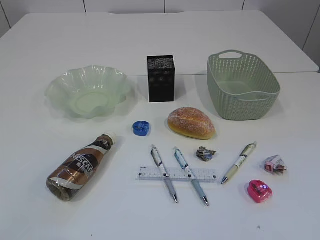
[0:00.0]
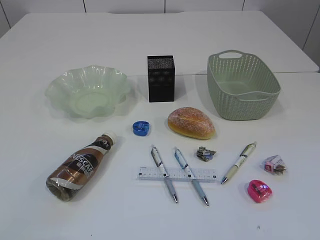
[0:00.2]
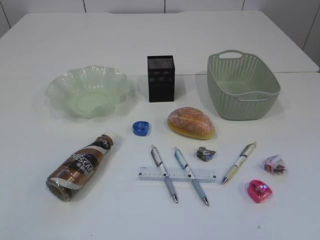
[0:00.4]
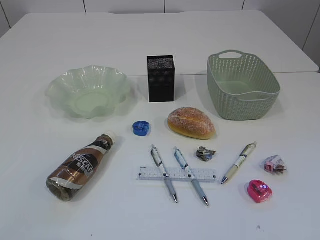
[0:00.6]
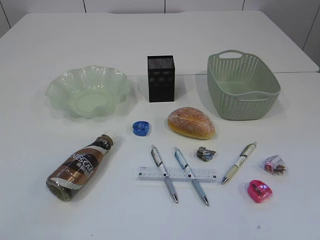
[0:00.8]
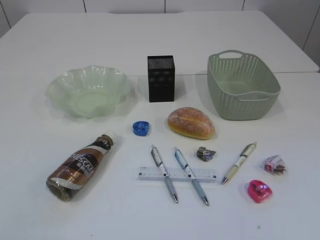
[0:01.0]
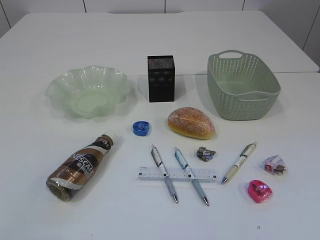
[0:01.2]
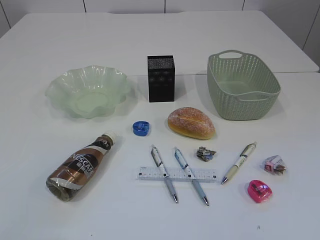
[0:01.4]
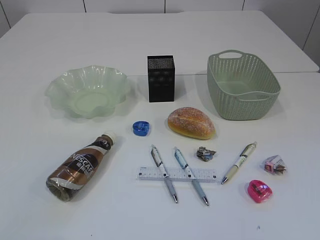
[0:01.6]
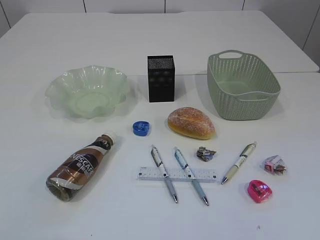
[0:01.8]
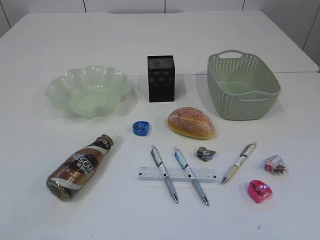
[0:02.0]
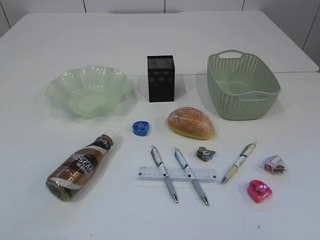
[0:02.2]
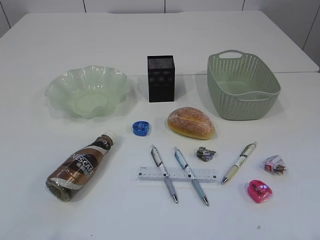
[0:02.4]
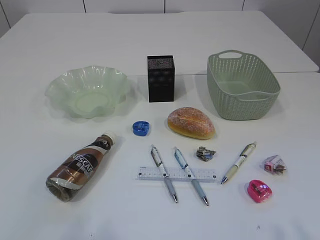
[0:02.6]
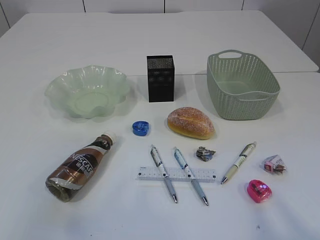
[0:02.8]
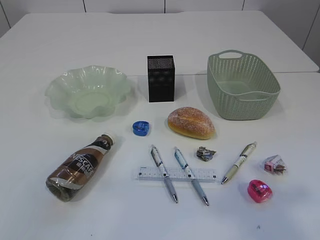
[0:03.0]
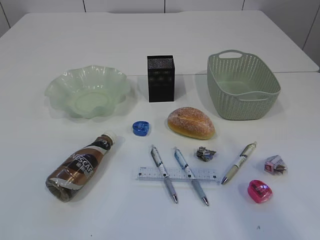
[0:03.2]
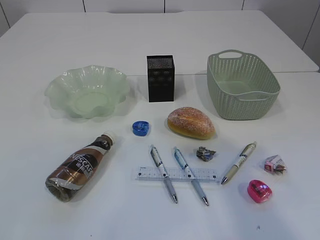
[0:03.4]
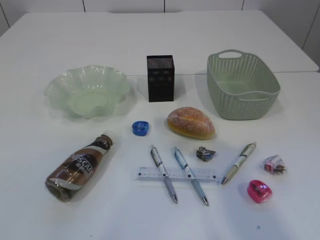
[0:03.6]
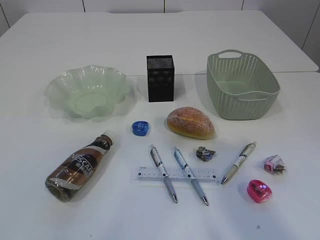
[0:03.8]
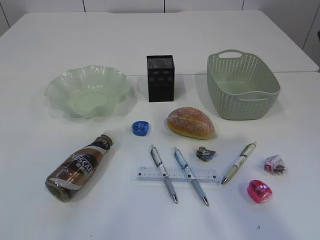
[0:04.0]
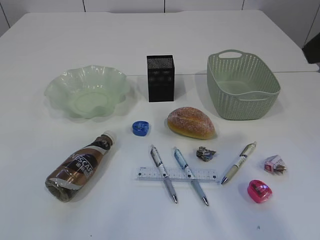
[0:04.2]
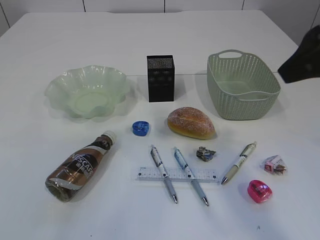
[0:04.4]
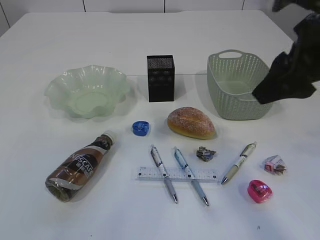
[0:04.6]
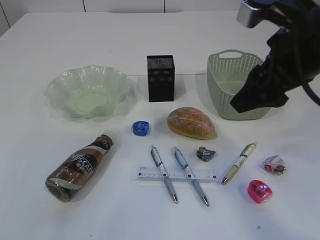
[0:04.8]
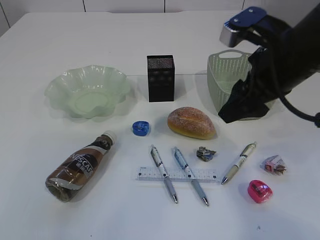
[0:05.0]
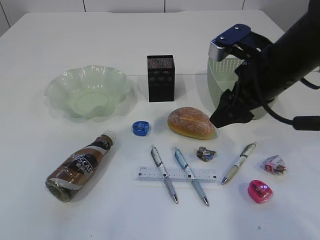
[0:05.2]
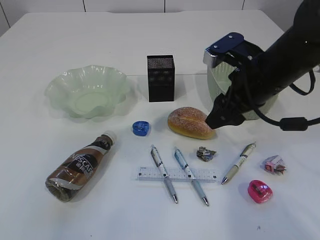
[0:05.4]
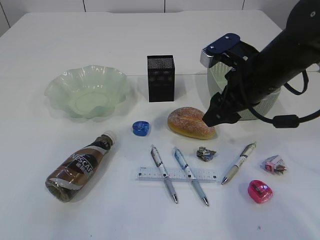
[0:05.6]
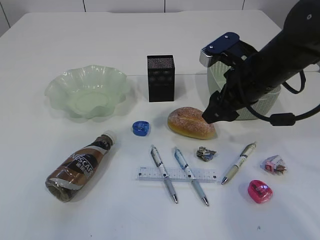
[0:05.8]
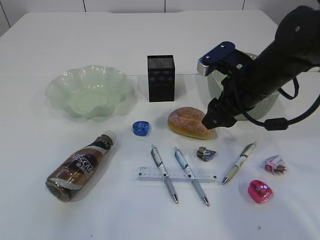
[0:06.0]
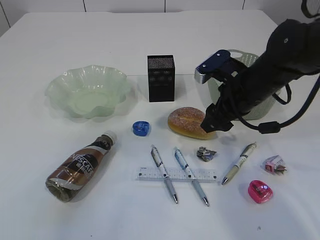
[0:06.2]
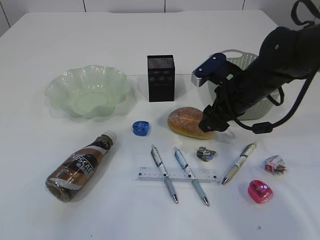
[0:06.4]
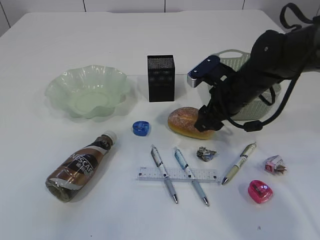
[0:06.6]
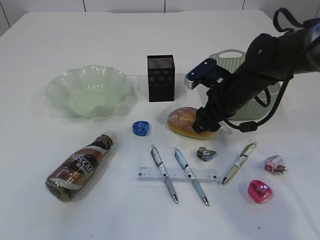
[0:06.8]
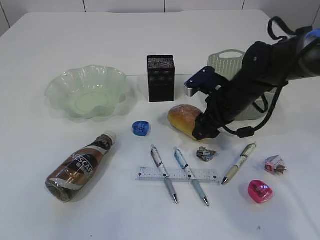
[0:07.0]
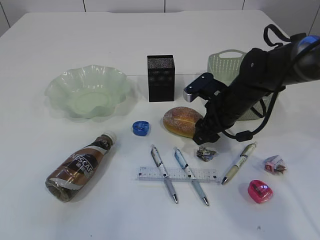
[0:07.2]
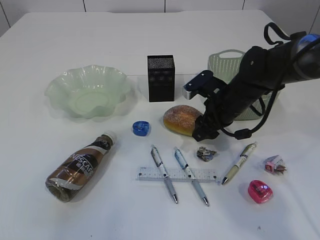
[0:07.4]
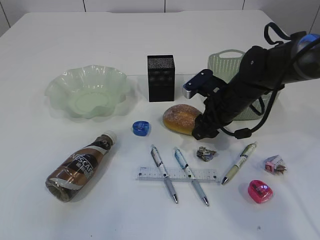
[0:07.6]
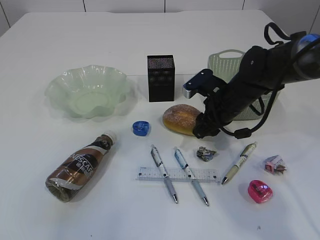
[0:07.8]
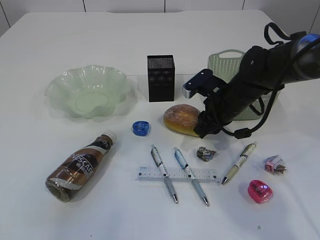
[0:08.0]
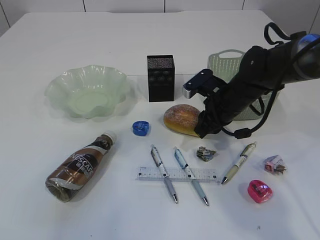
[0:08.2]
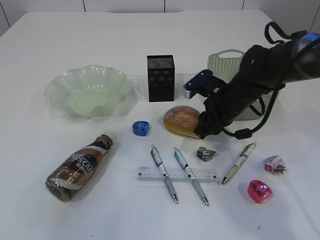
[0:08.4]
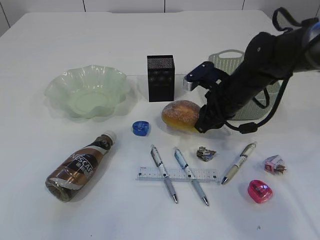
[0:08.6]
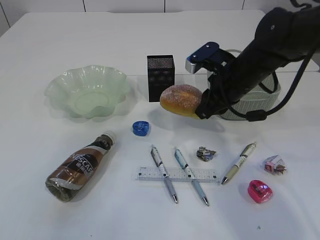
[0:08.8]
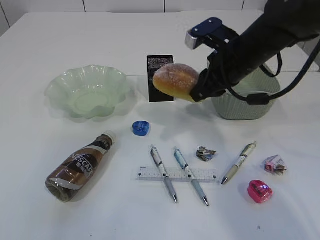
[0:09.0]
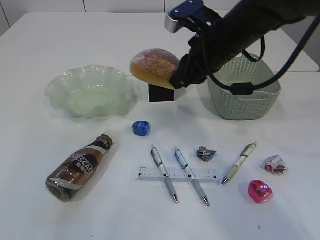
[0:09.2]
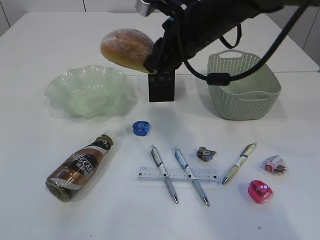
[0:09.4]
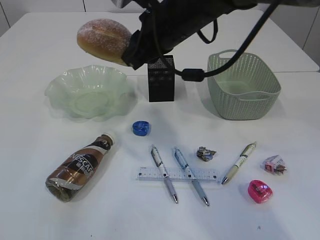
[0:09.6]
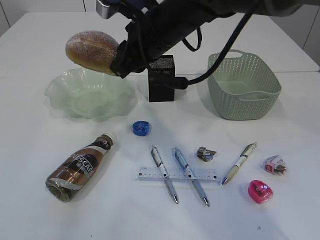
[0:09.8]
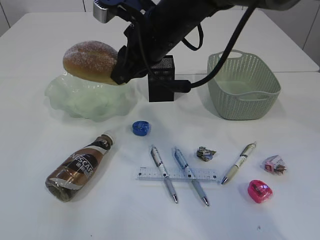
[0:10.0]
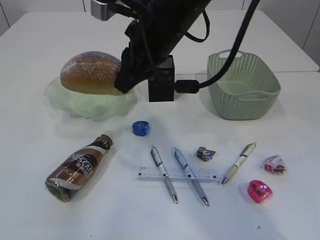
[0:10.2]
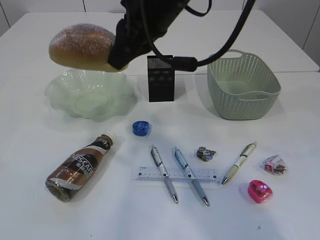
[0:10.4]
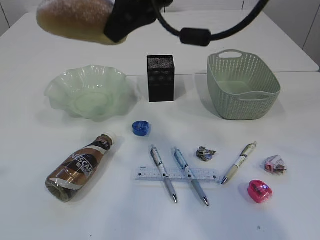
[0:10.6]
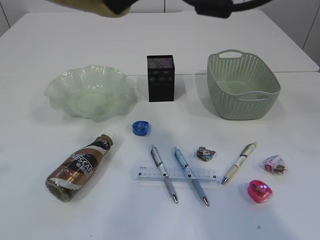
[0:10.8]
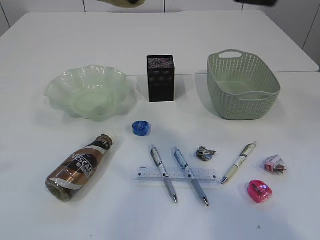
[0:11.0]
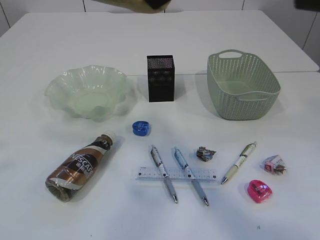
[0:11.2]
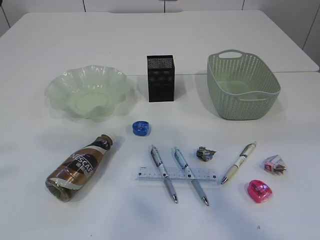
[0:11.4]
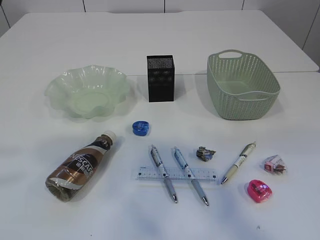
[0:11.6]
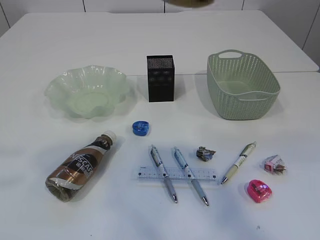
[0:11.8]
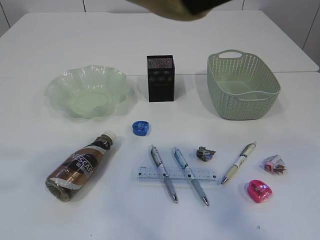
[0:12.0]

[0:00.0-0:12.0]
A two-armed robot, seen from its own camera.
0:01.6 to 0:03.0: The right gripper goes some 15 cm upward.
0:03.0 to 0:04.4: The right gripper is displaced forward and downward by approximately 20 cm. Meanwhile the left gripper heads forward, covering some 15 cm.
0:04.4 to 0:06.0: The right gripper heads downward and forward, covering about 20 cm, and opens its fingers.
0:06.0 to 0:07.6: The right gripper travels downward and forward by about 10 cm.
0:07.6 to 0:09.0: The right gripper goes about 10 cm upward, and closes.
0:09.0 to 0:10.4: The right gripper is displaced to the left and upward by some 15 cm.
0:10.4 to 0:12.0: The right gripper shifts roughly 25 cm backward, upward and to the right, while the left gripper shifts by about 5 cm.

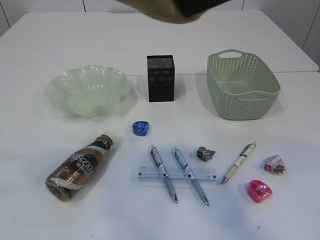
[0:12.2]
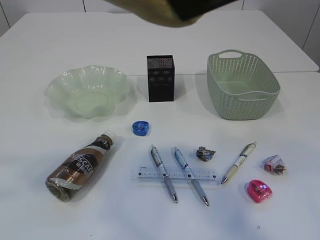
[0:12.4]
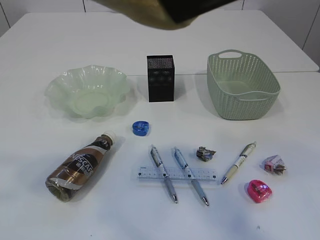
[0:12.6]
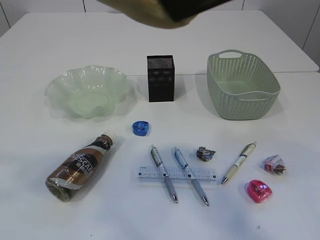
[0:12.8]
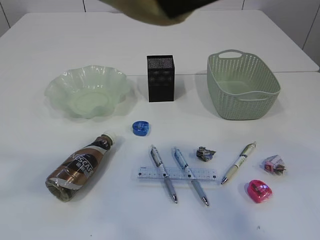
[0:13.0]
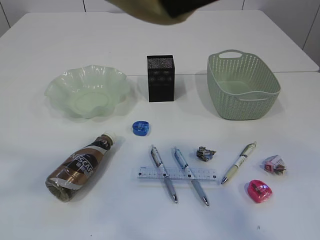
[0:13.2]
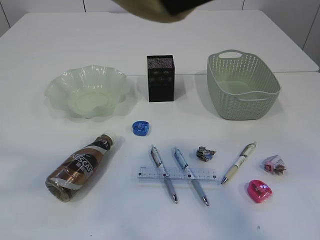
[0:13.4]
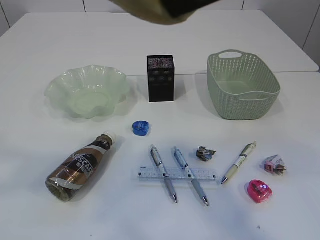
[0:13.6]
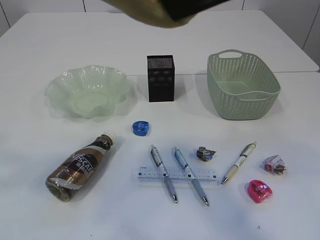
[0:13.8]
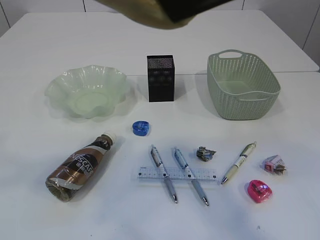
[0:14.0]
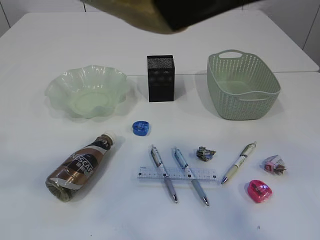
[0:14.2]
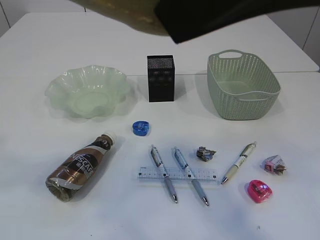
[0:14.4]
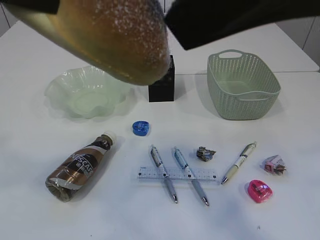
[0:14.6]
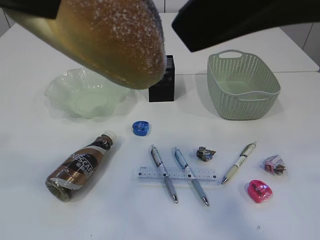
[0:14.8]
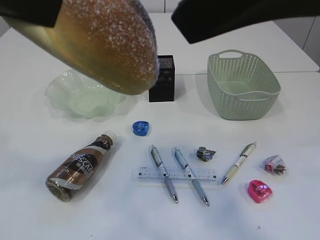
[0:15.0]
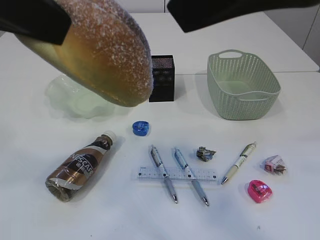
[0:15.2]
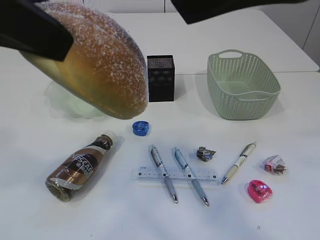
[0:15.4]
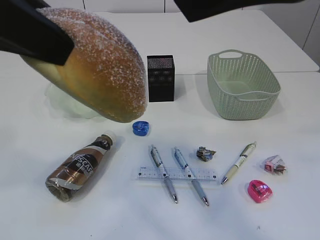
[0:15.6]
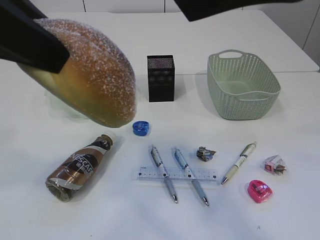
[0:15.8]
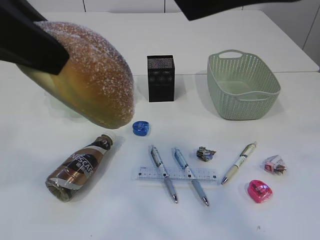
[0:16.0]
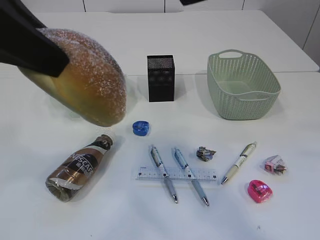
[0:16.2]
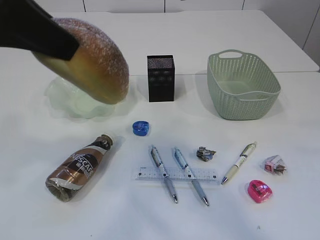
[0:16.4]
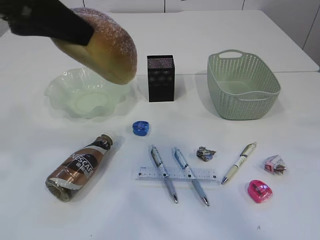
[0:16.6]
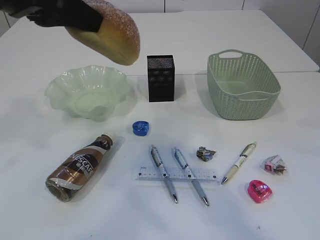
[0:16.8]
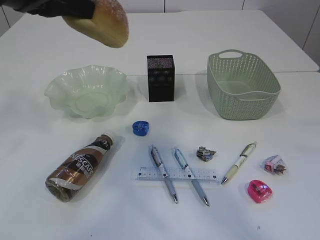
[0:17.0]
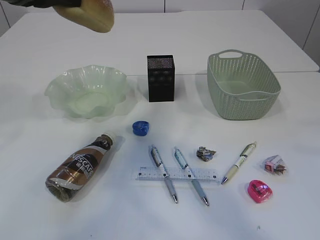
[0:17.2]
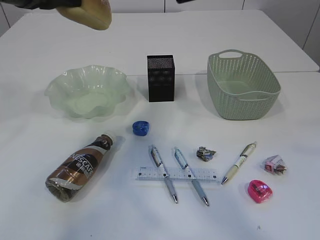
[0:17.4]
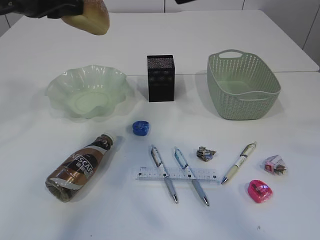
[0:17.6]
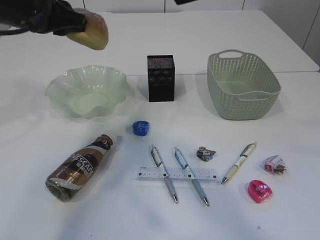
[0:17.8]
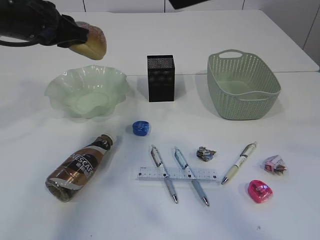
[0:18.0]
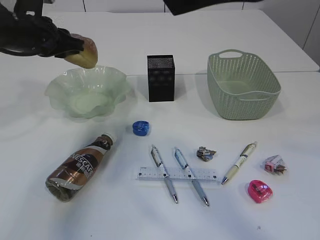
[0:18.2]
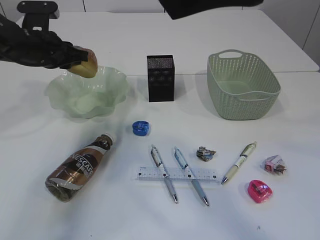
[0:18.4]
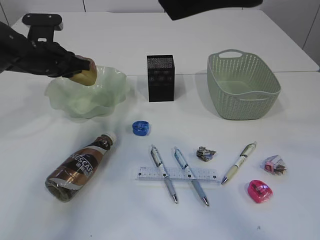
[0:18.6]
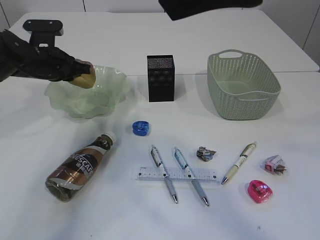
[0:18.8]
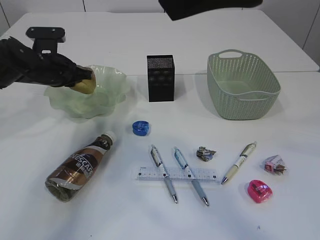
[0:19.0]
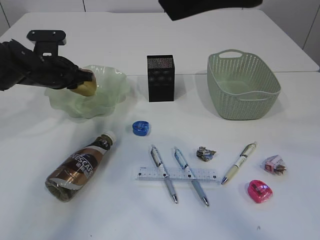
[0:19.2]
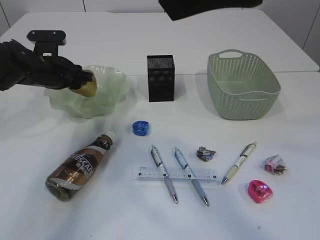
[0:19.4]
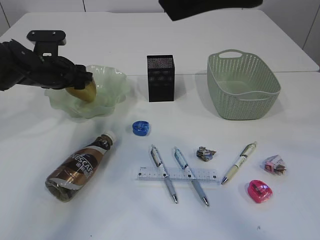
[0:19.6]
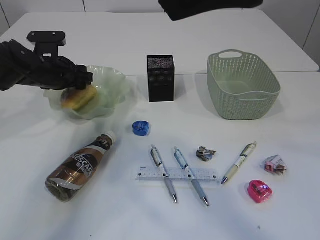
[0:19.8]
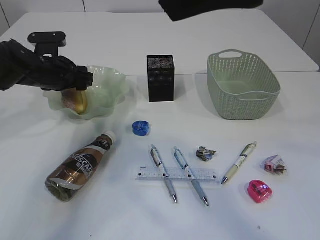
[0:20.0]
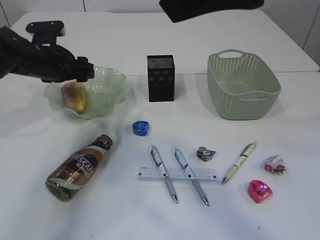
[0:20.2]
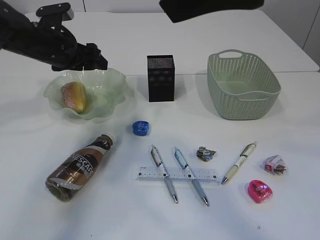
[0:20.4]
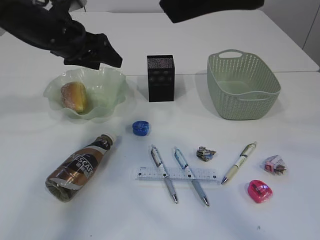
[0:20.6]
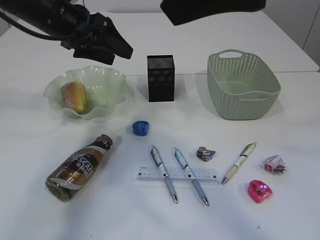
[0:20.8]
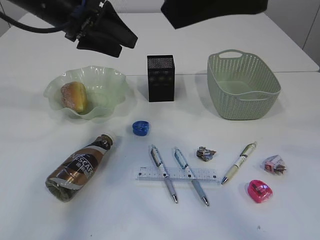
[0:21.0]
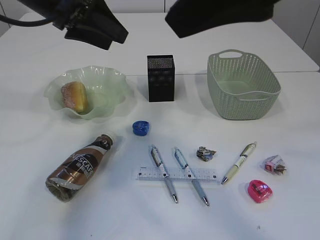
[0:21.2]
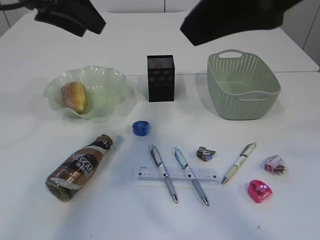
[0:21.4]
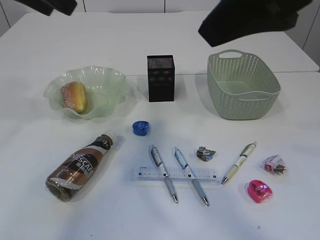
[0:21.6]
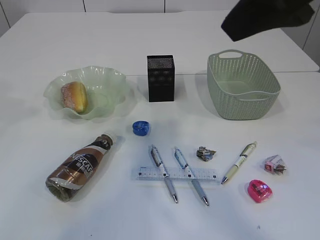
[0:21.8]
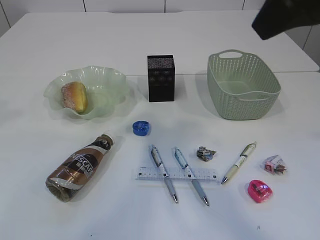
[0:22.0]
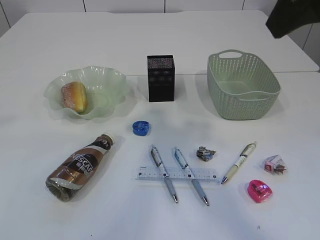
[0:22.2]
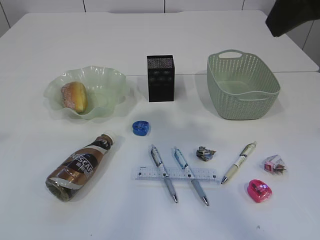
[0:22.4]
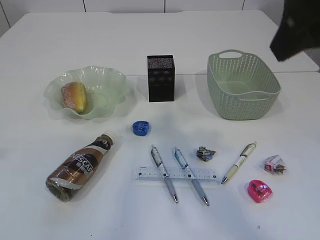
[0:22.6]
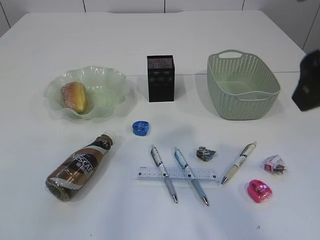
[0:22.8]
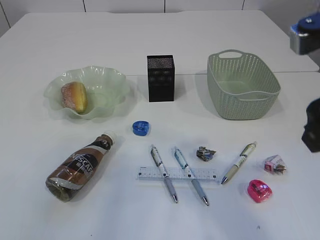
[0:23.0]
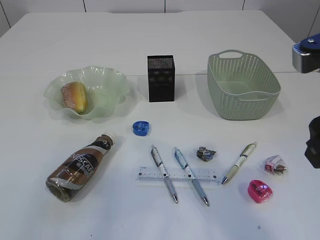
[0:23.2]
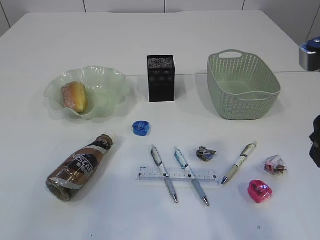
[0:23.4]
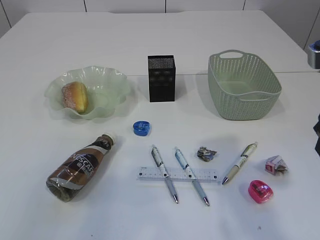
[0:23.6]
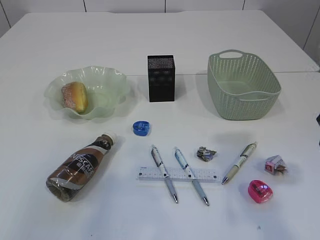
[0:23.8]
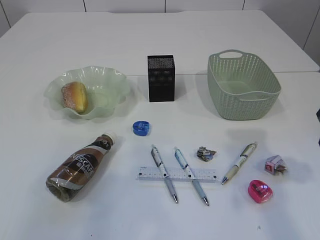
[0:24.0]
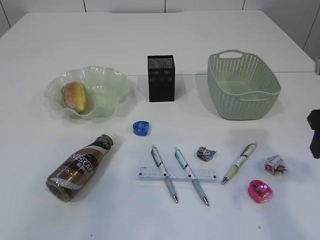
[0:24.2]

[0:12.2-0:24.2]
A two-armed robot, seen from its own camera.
Step, 0:12.2 to 0:15.0: Hand over the bread.
Step, 0:15.2 to 0:21.0: place the bread in the plate.
0:12.2 to 0:13.8: The left gripper closes.
0:13.8 to 0:15.2: The right gripper opens.
0:15.2 to 0:16.6: The left gripper moves forward, roughly 5 cm.
0:16.6 to 0:18.2: The left gripper heads forward and downward, covering approximately 20 cm.
0:18.2 to 0:19.8: The left gripper moves downward, approximately 10 cm, and opens its fingers.
0:19.8 to 0:21.2: The left gripper heads upward, covering approximately 15 cm.
0:21.2 to 0:22.6: The left gripper is displaced backward, upward and to the left by about 20 cm, while the right gripper travels to the right by some 5 cm.
0:22.6 to 0:24.2: The left gripper shifts about 10 cm backward and downward. Meanwhile the right gripper is displaced downward and to the right by some 20 cm.
